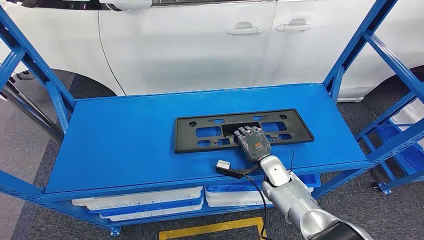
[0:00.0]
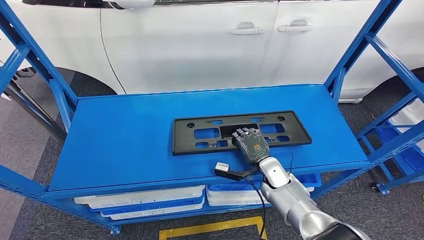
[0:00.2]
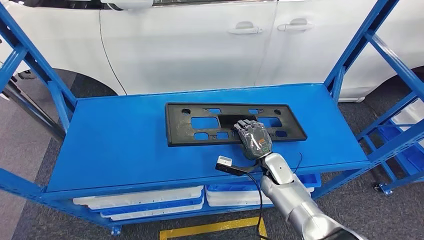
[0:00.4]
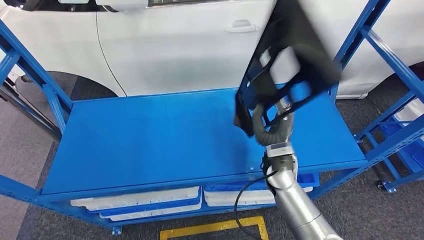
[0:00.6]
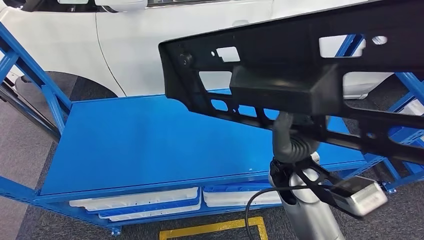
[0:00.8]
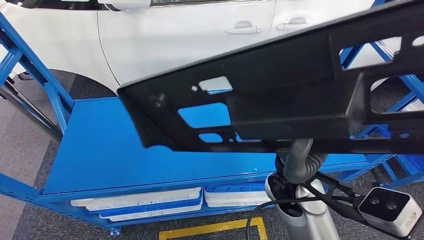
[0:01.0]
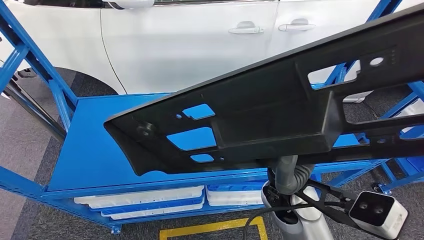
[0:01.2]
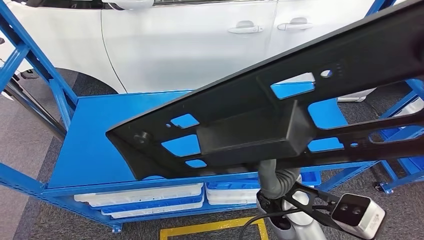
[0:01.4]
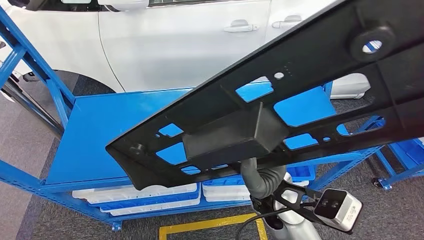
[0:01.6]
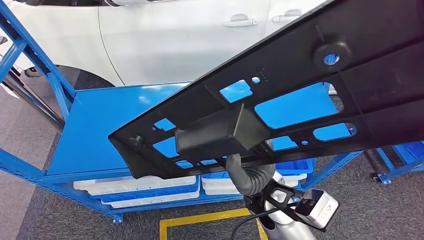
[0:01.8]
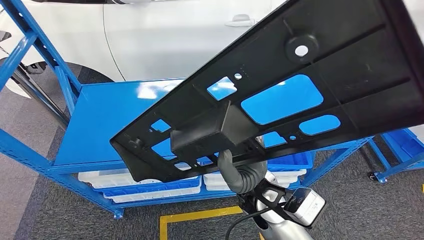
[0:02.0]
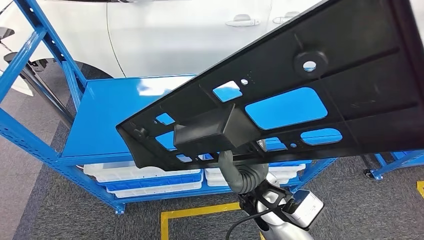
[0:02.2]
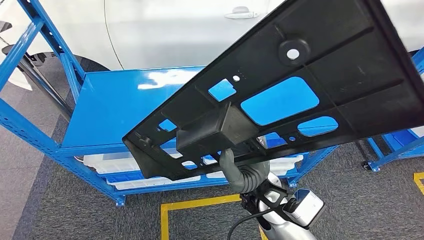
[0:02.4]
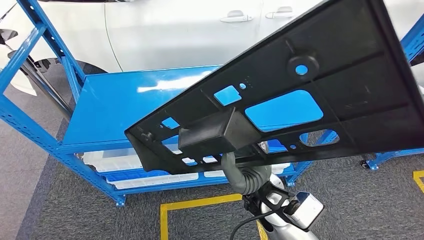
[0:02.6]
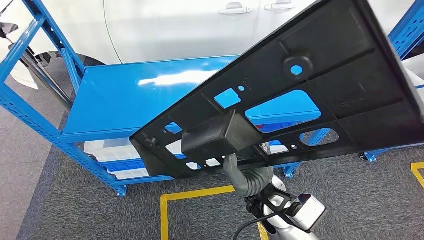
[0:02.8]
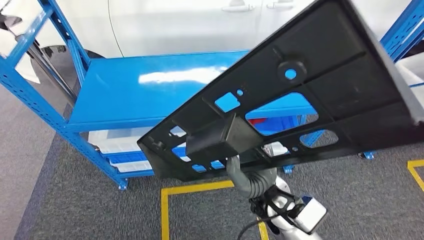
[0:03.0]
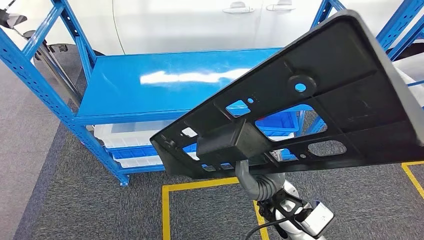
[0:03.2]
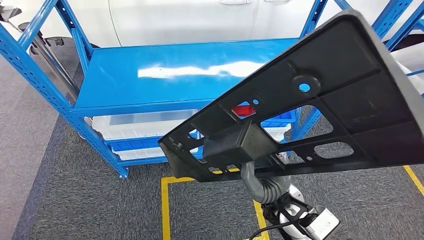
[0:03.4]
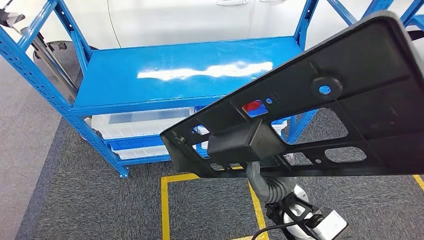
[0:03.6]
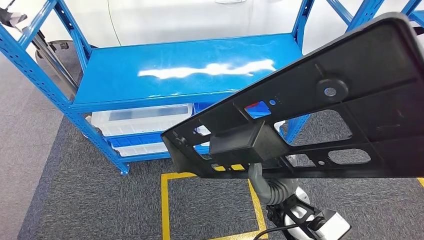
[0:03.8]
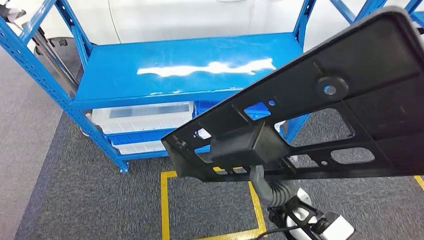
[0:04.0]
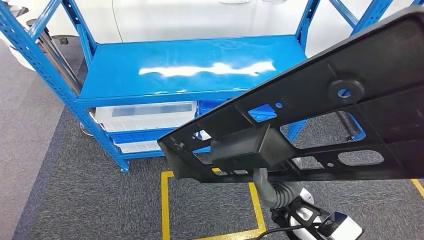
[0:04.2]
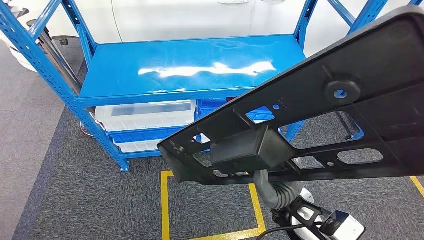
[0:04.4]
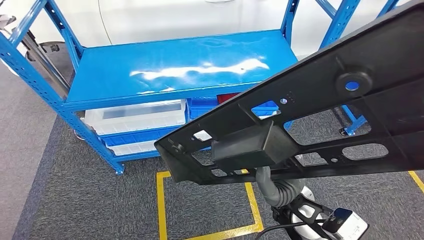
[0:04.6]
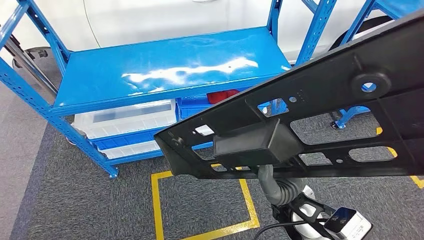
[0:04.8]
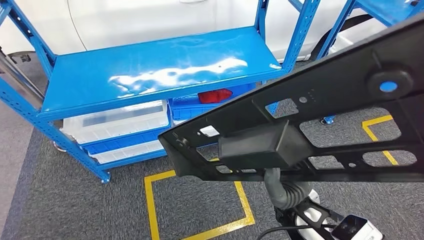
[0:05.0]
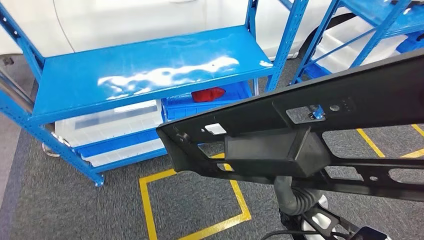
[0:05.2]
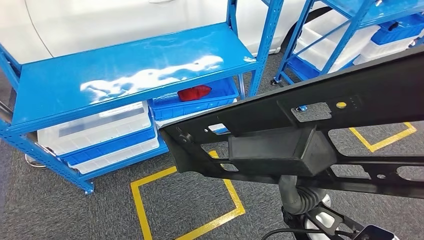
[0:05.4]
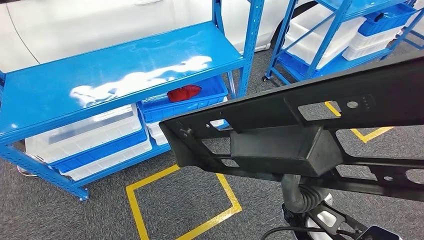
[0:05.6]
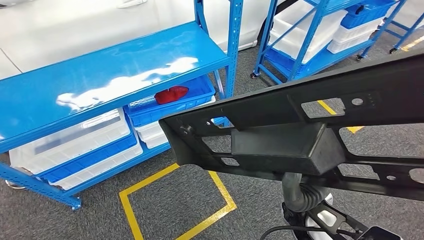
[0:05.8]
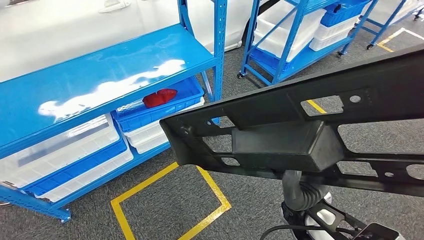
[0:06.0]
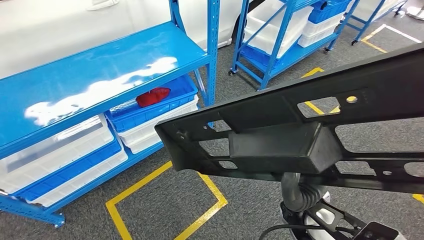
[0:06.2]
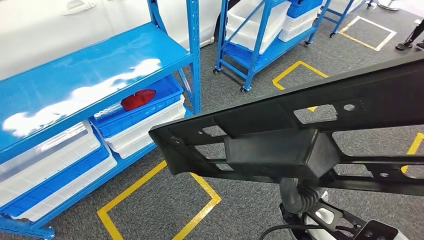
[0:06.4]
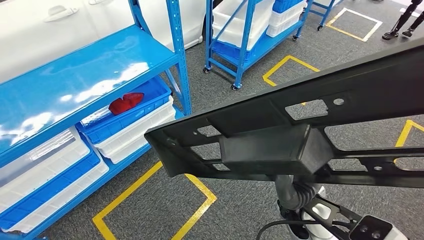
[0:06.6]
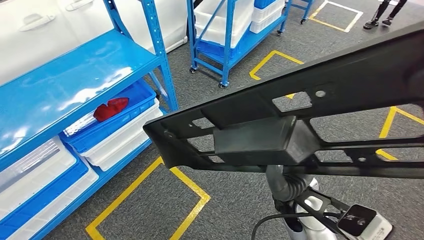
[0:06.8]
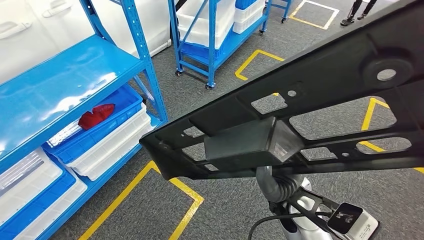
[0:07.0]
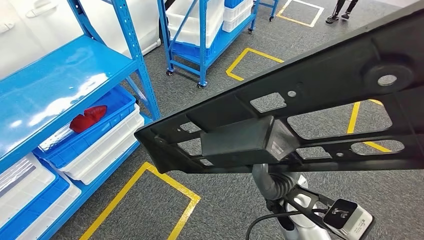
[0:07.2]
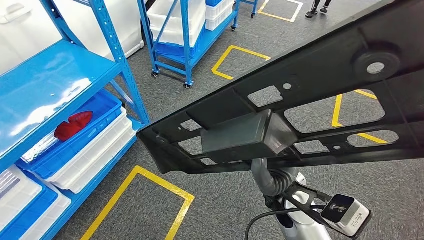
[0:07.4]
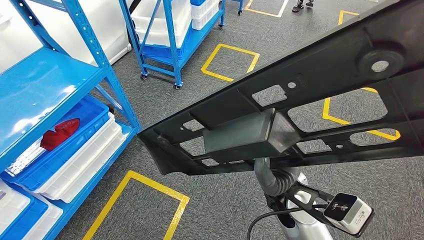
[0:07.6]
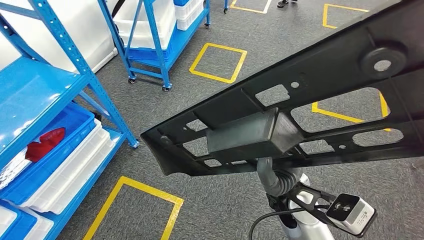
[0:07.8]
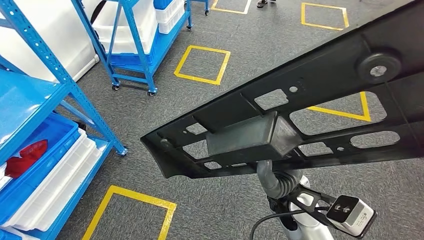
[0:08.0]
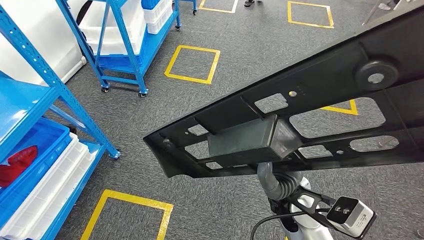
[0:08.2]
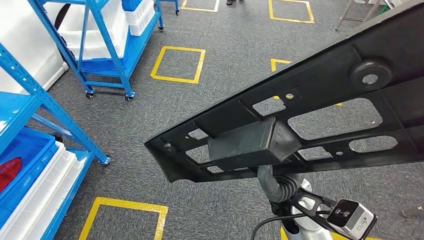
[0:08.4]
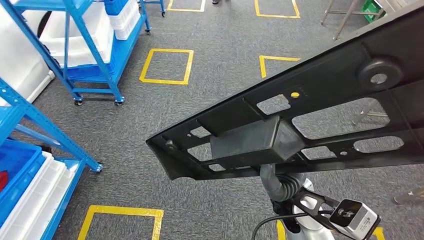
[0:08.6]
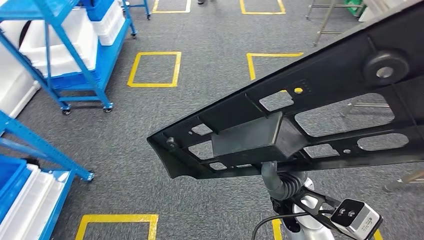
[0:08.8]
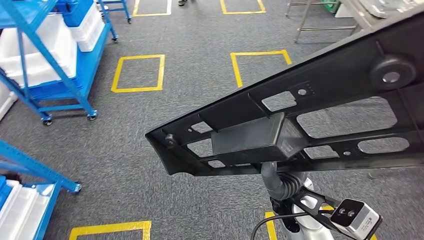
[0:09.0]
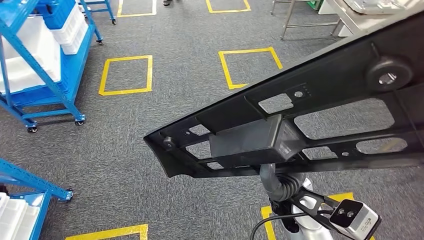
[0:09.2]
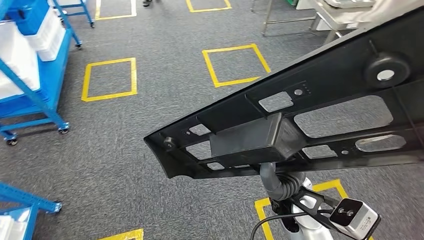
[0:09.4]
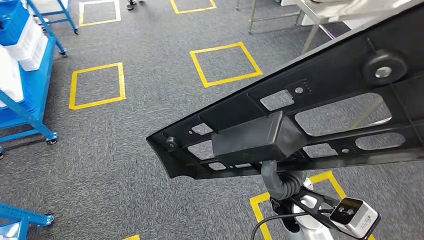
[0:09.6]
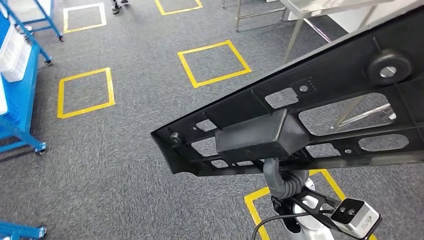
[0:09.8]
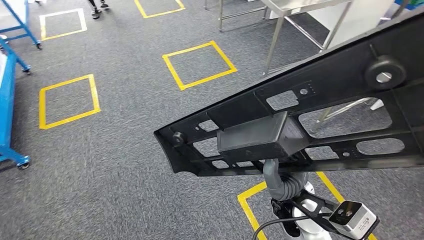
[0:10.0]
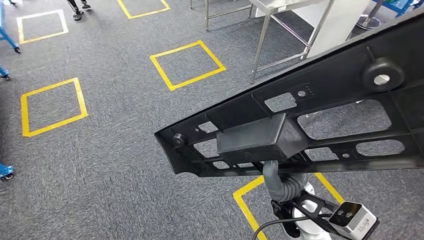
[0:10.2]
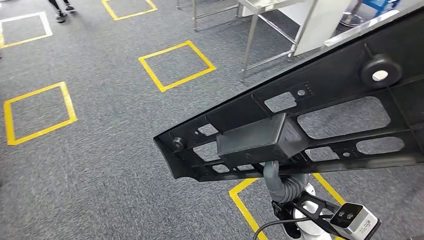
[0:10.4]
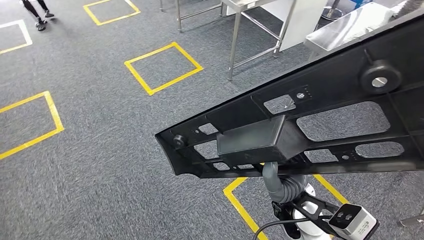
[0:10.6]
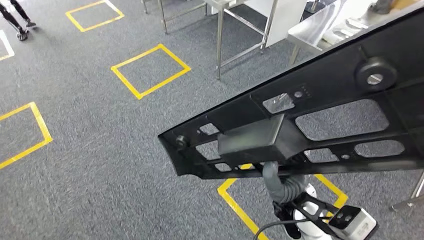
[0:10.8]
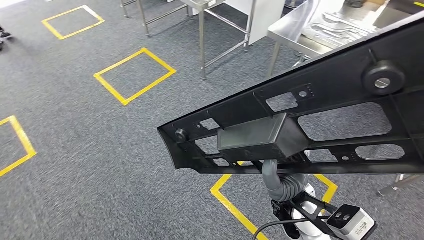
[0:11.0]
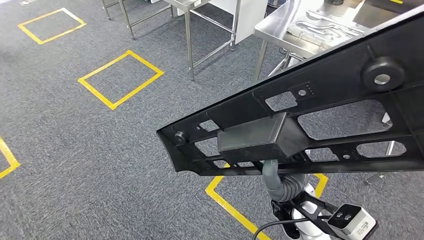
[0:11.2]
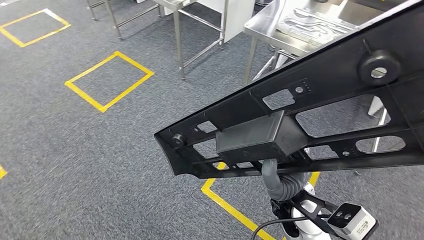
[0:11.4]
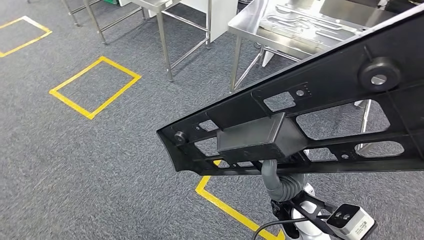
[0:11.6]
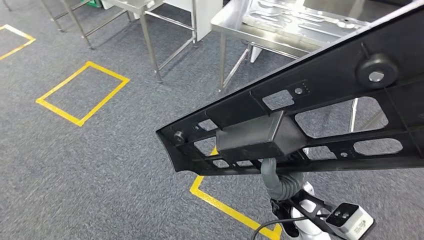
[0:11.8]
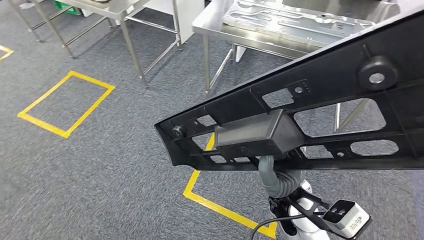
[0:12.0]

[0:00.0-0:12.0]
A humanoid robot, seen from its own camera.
Step, 0:00.0 to 0:03.6: Pick up the large material from the shelf.

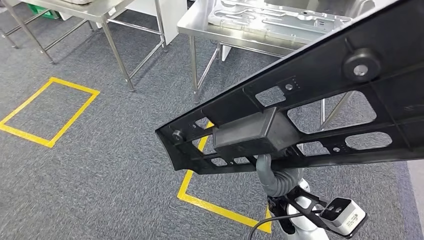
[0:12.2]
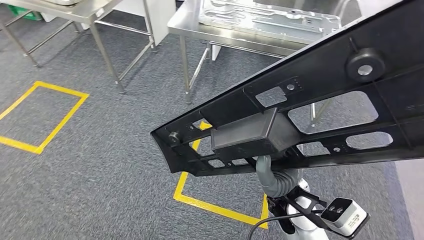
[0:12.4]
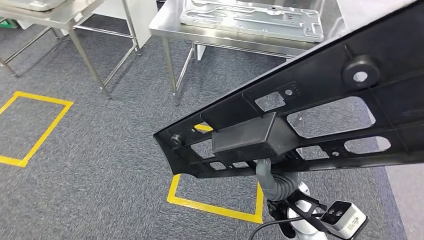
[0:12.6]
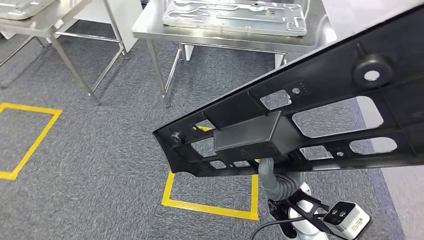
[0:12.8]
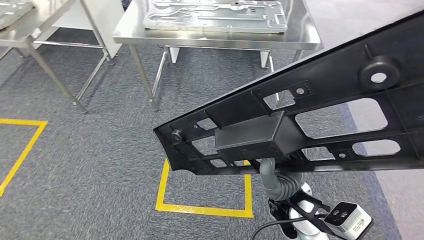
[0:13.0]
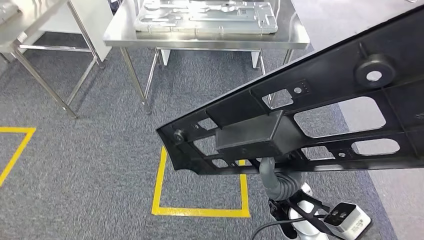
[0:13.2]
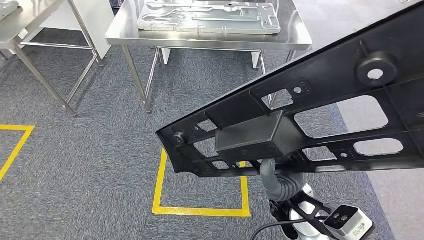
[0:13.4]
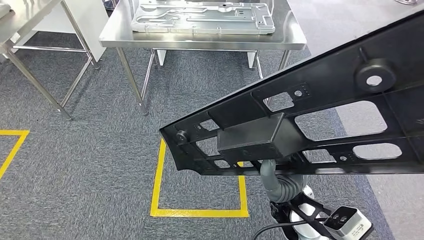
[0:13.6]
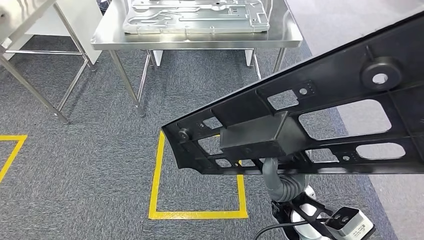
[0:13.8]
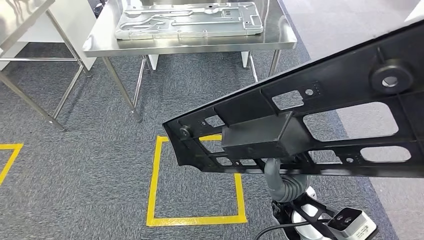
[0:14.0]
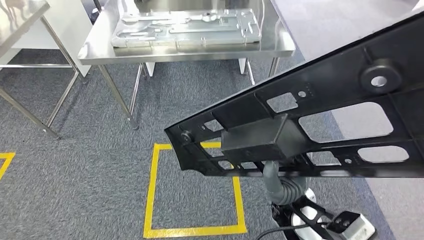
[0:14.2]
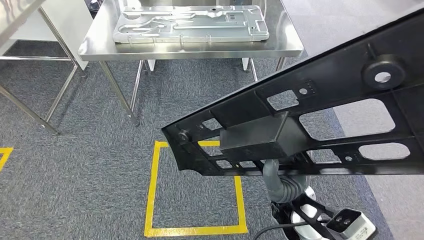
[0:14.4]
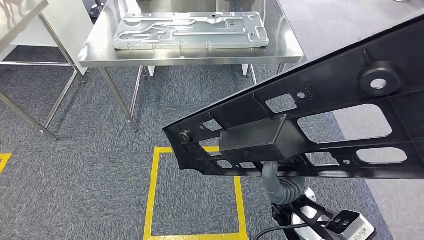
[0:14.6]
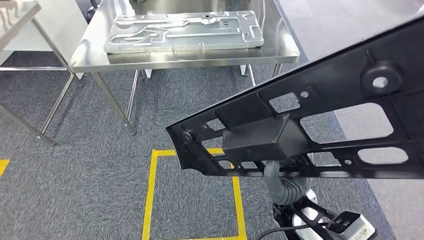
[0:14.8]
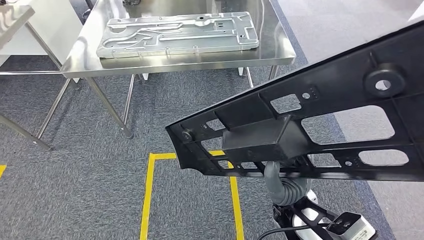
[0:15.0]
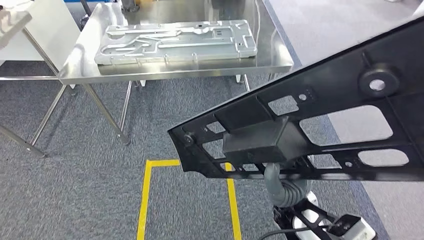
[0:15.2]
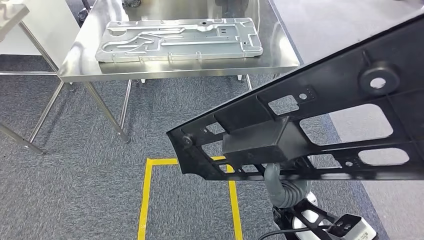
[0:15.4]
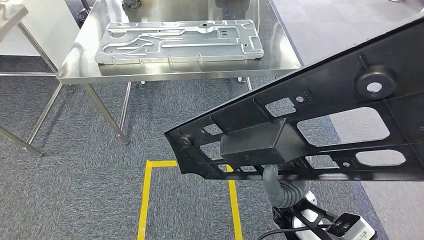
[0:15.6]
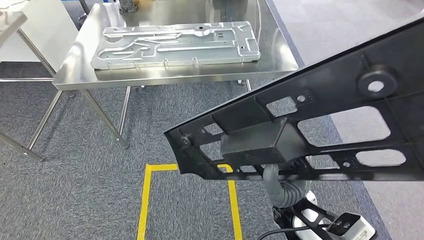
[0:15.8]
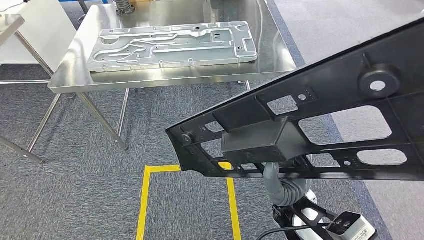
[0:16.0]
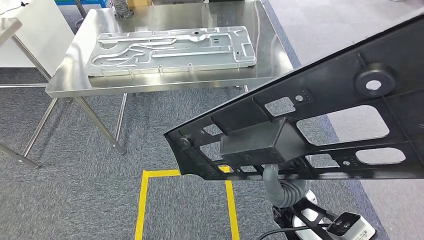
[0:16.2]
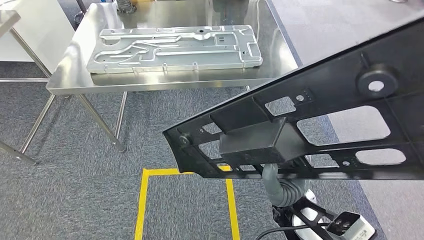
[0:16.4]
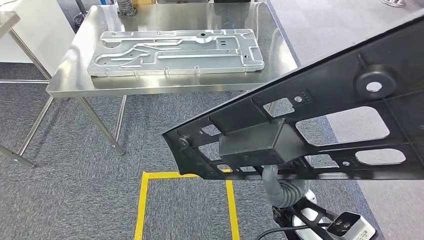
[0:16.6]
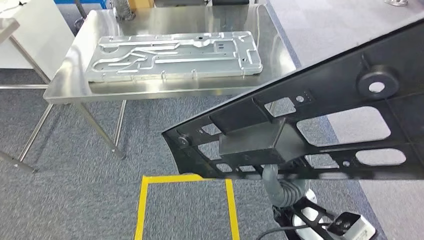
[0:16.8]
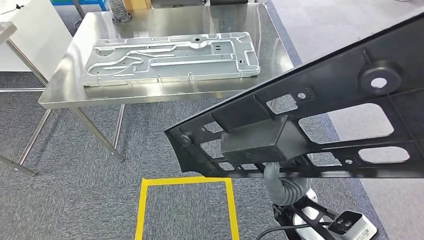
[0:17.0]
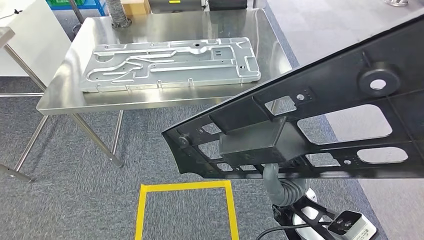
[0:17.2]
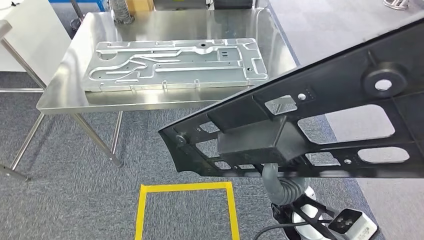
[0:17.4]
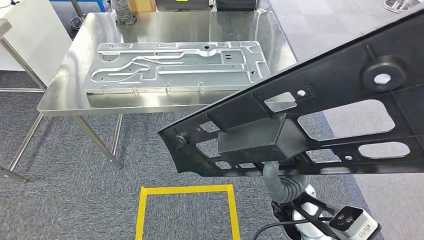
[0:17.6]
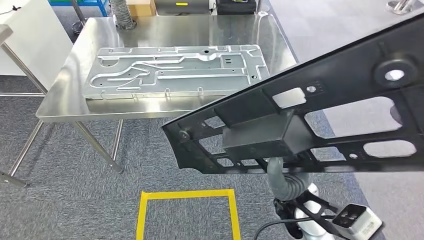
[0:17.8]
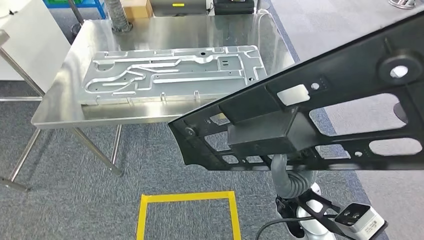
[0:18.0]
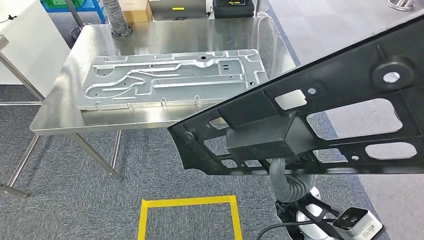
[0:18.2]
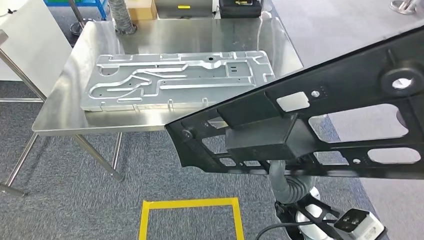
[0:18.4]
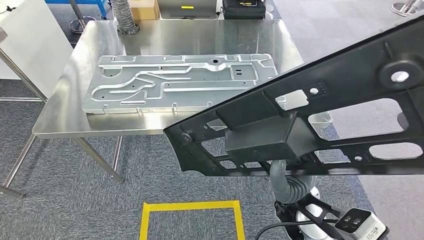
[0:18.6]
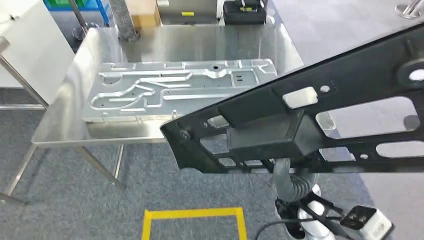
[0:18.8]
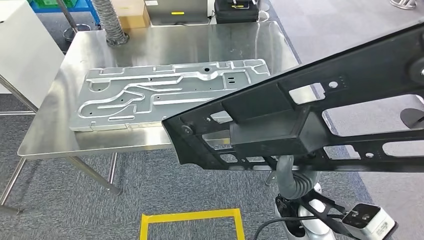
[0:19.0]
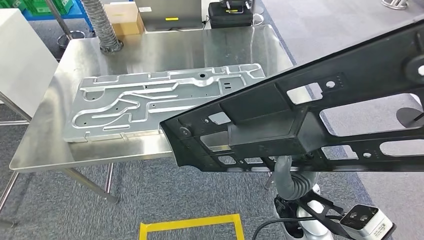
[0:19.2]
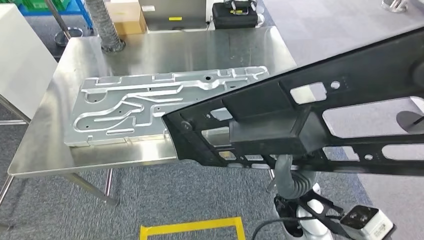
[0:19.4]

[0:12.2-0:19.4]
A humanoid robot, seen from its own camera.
Step, 0:12.2 to 0:18.0: Move the large material to the workbench.
